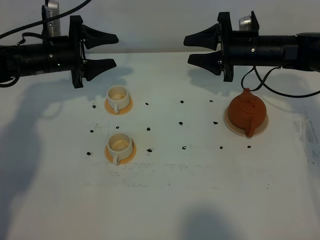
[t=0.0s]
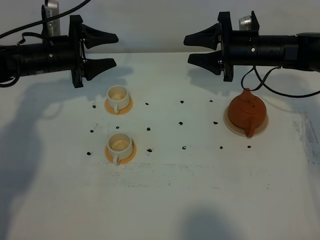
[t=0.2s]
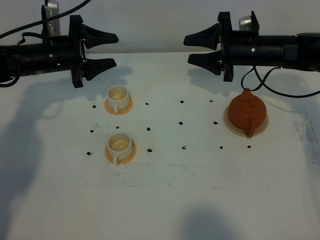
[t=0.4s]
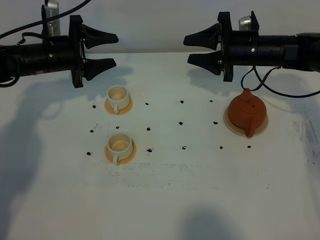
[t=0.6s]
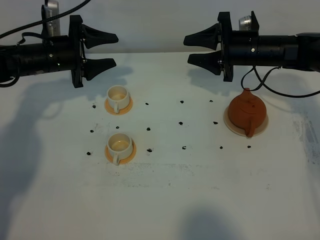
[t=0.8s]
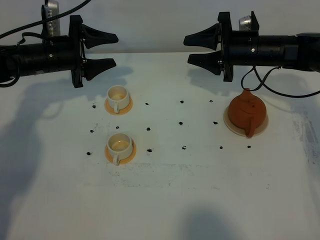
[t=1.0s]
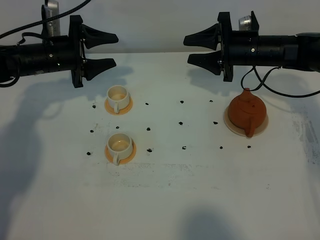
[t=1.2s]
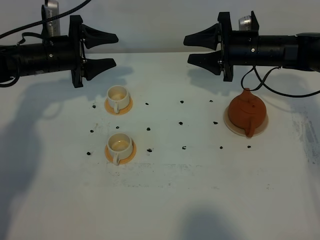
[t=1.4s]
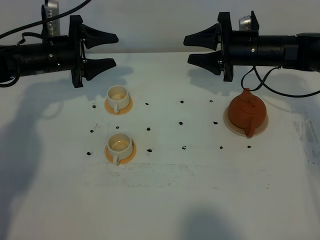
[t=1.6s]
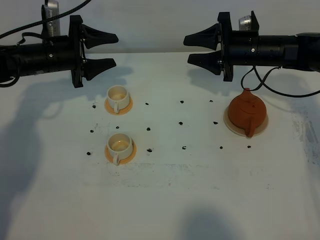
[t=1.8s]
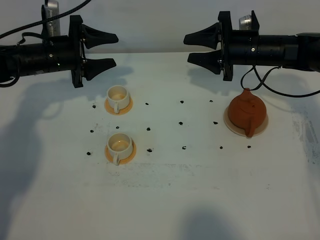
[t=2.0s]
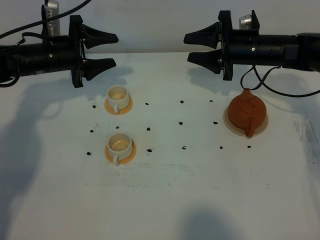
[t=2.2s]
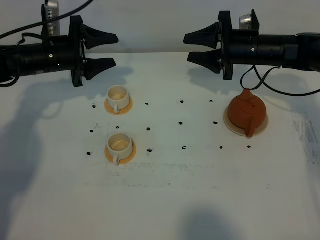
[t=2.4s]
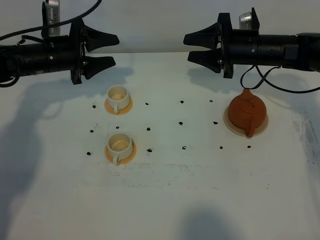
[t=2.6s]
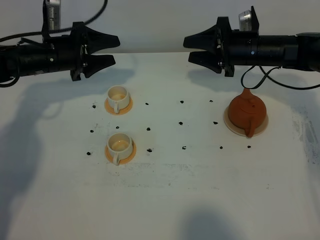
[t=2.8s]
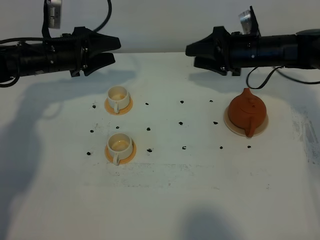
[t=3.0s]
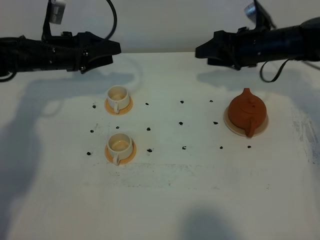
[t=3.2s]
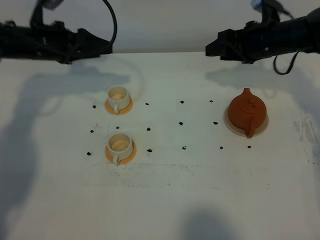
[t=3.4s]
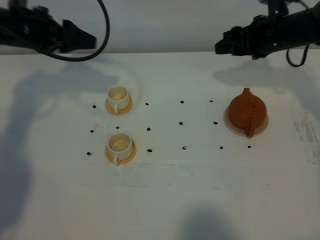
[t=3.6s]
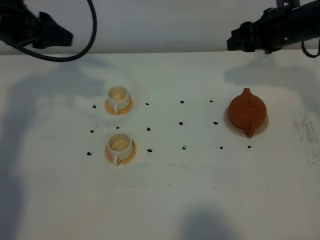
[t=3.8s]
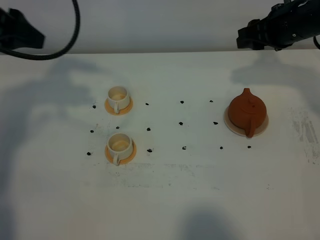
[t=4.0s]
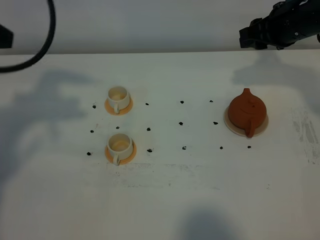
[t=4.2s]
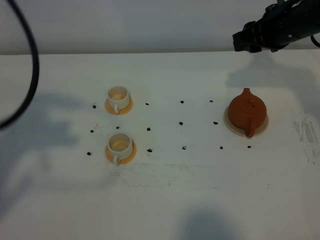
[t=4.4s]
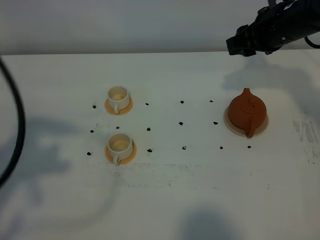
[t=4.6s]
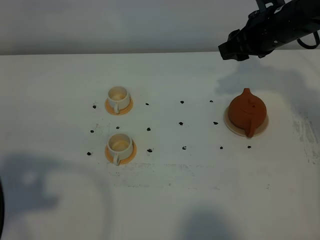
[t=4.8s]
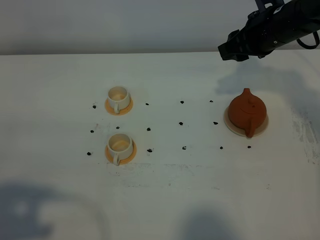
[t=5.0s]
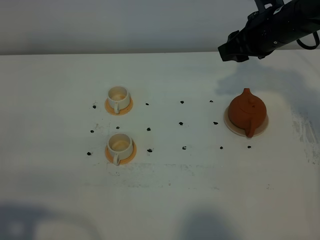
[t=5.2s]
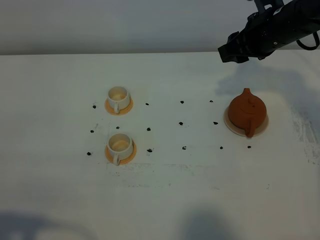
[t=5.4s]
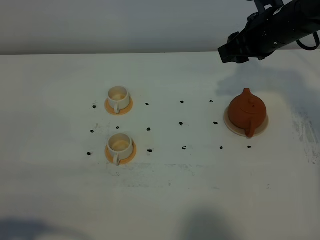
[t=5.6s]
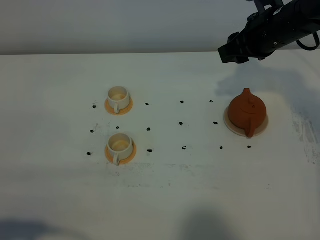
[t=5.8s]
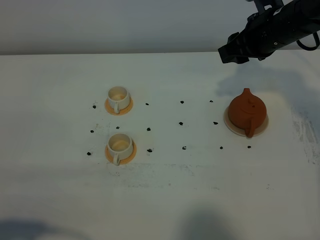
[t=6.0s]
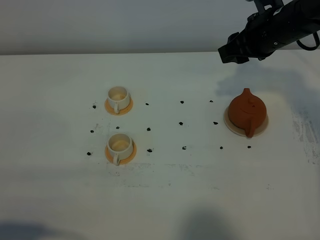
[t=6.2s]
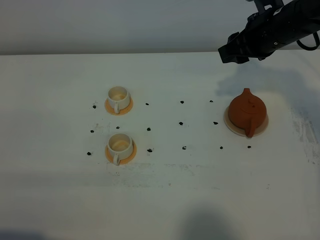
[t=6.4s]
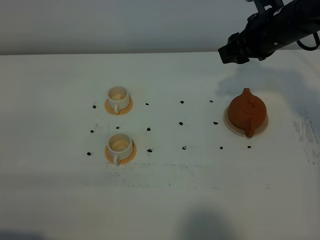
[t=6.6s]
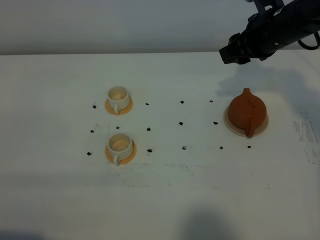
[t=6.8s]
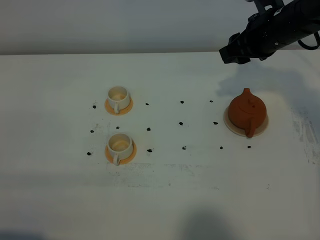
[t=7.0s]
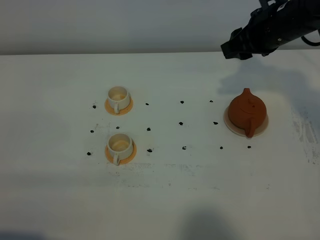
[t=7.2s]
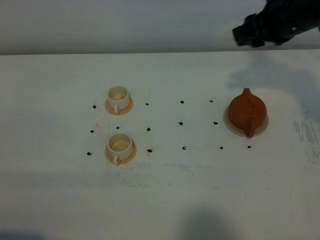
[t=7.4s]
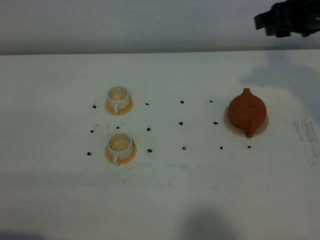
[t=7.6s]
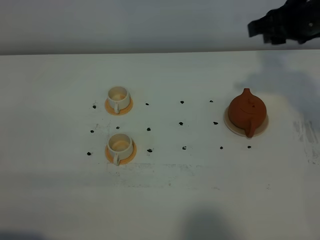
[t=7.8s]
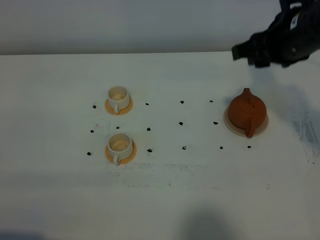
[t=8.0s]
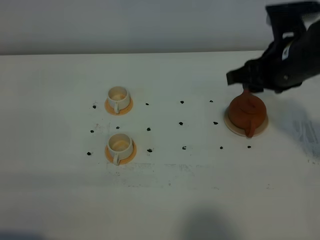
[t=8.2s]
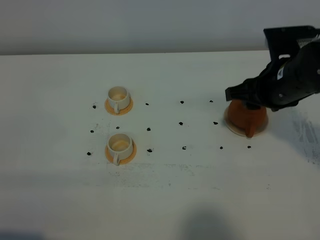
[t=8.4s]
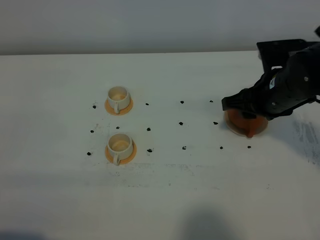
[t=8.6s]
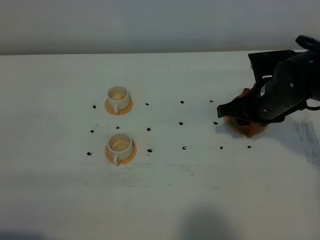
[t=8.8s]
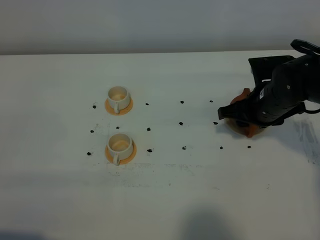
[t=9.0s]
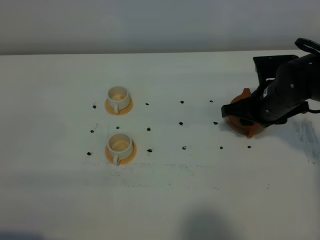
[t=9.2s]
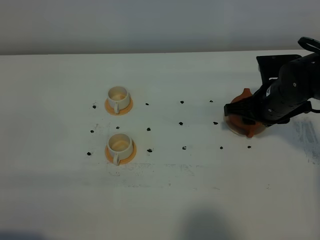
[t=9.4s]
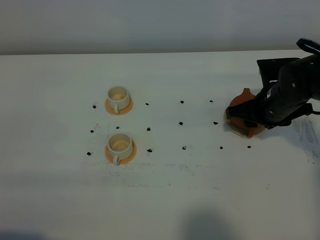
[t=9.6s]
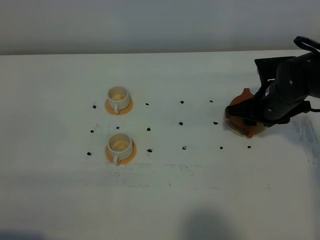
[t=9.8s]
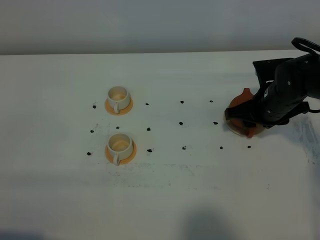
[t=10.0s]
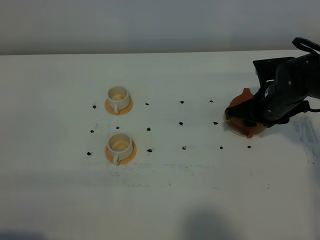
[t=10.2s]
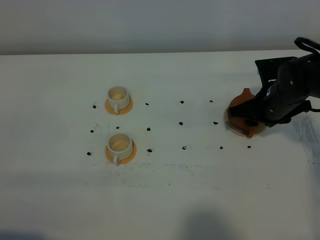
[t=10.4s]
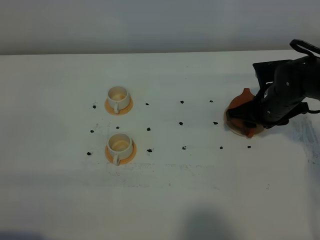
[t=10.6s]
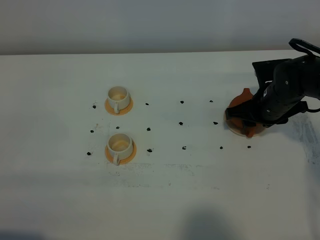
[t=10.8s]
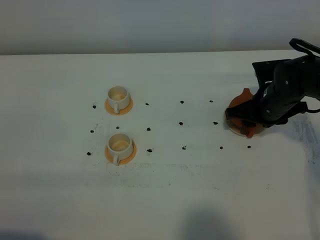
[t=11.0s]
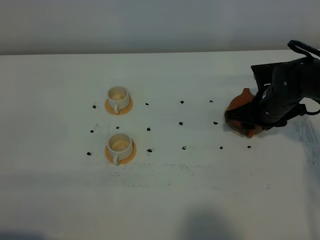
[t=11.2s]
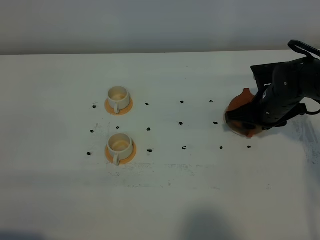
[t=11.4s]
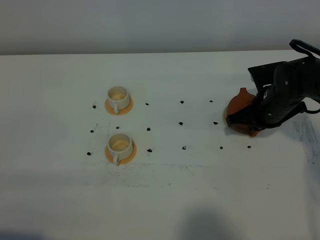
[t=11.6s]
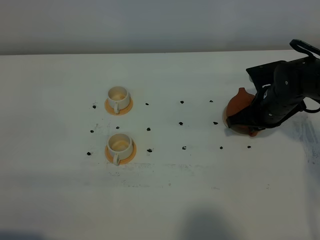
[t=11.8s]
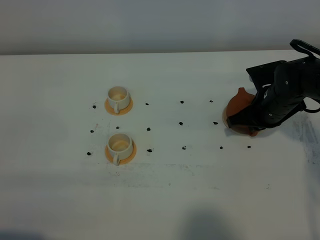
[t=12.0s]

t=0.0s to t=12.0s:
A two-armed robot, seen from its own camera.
Task of the whole recording: grasp the brown teapot and pour the tea into the two white teacups one by one, put the brown teapot back in its original place.
t=0.0s to t=1.6s: The two grippers keep their place.
t=3.0s to t=4.4s: The left gripper heads backward and upward, covering some 35 cm, while the right gripper goes roughly 10 cm upward.
t=4.4s to t=6.0s: The left gripper moves backward and downward, about 25 cm.
t=6.0s to t=7.6s: The right gripper heads upward, covering approximately 5 cm.
t=7.6s to t=9.0s: The right gripper goes about 15 cm downward.
t=9.0s to t=10.4s: The grippers move only a little.
t=10.4s to t=12.0s: The right gripper closes.

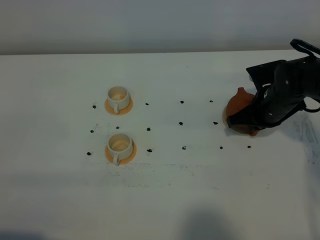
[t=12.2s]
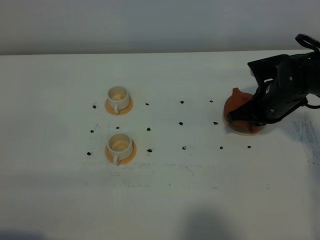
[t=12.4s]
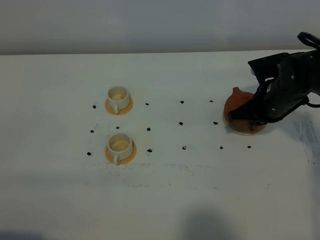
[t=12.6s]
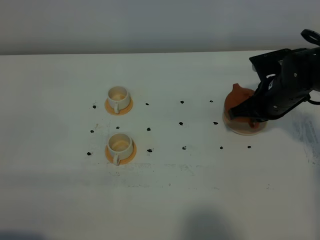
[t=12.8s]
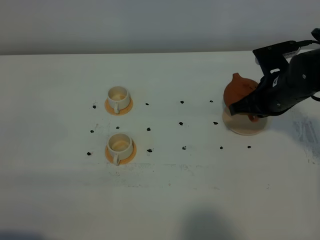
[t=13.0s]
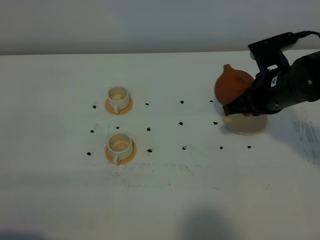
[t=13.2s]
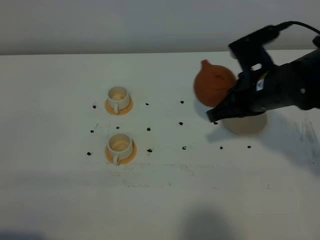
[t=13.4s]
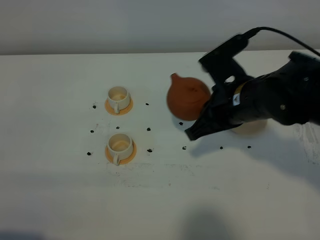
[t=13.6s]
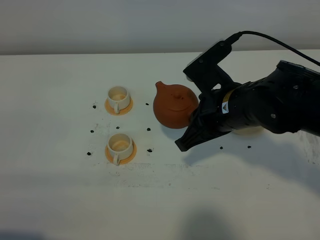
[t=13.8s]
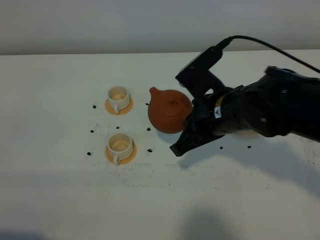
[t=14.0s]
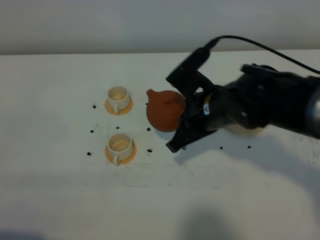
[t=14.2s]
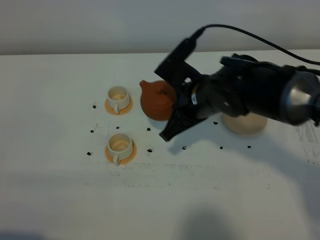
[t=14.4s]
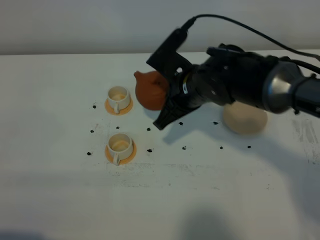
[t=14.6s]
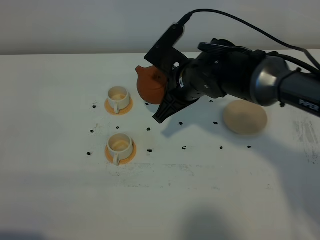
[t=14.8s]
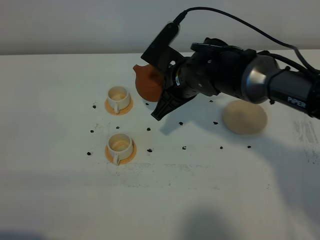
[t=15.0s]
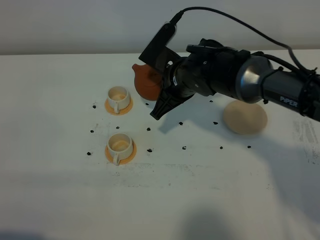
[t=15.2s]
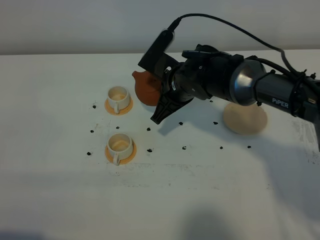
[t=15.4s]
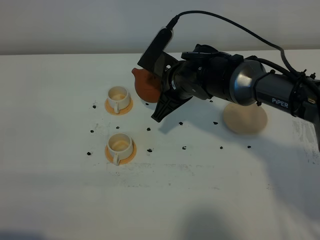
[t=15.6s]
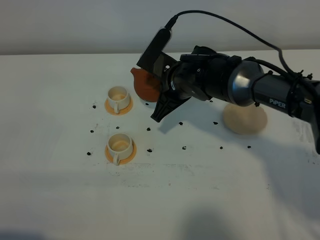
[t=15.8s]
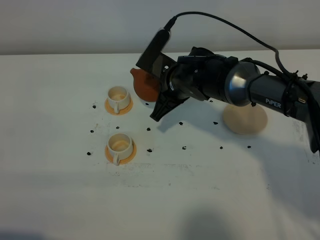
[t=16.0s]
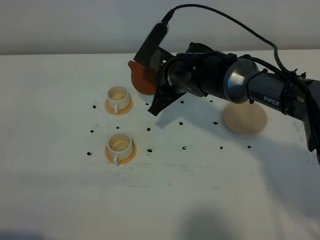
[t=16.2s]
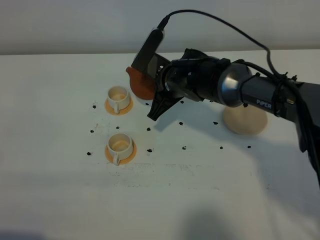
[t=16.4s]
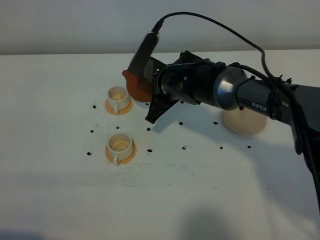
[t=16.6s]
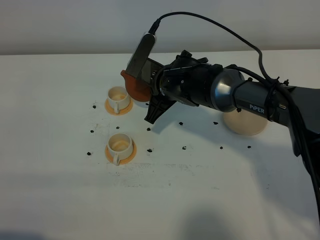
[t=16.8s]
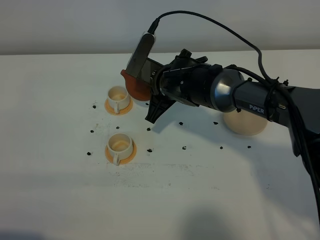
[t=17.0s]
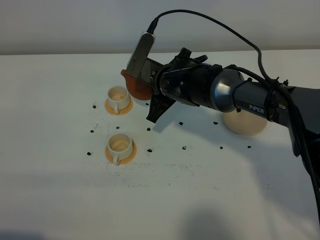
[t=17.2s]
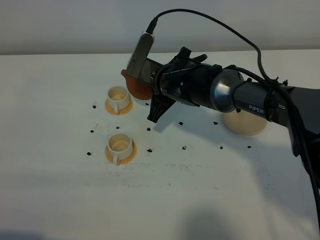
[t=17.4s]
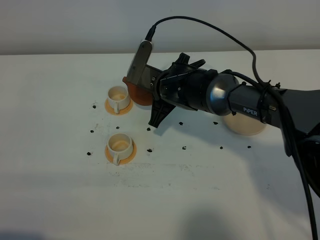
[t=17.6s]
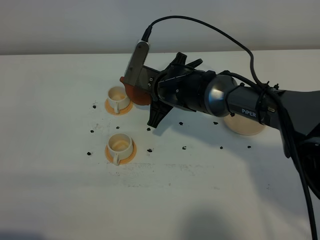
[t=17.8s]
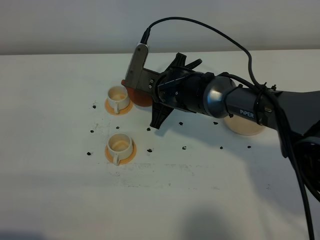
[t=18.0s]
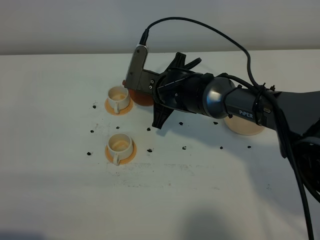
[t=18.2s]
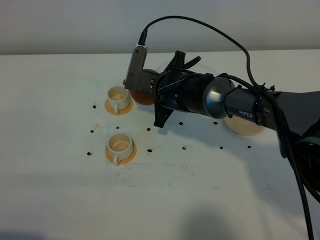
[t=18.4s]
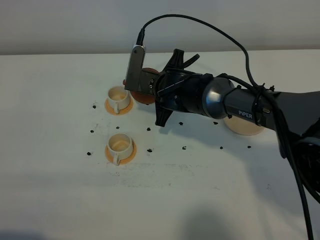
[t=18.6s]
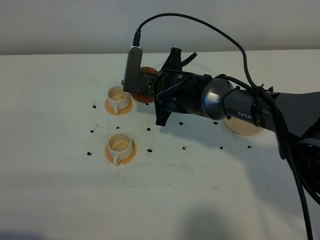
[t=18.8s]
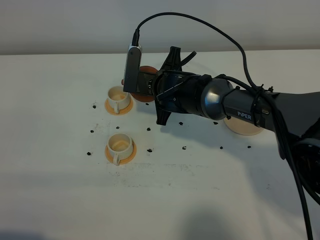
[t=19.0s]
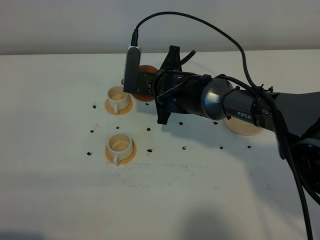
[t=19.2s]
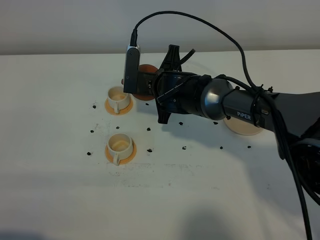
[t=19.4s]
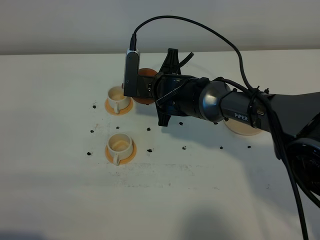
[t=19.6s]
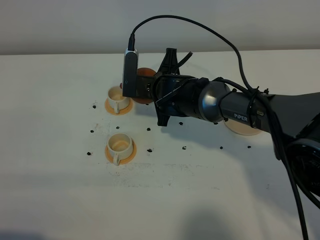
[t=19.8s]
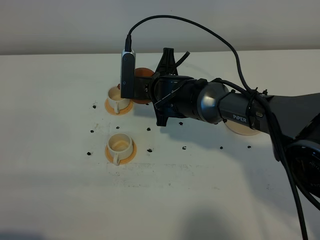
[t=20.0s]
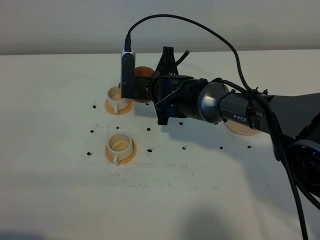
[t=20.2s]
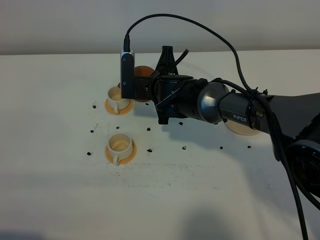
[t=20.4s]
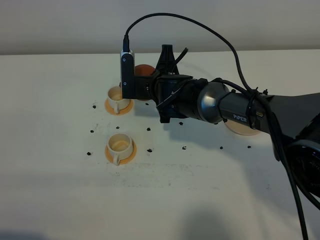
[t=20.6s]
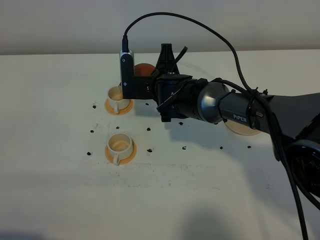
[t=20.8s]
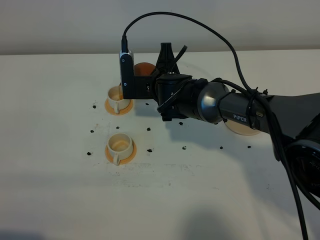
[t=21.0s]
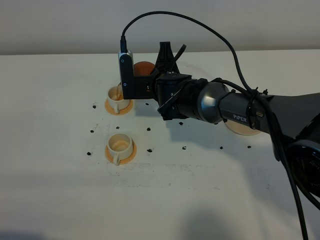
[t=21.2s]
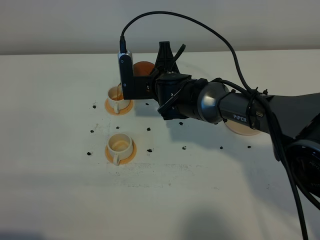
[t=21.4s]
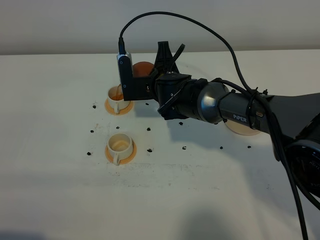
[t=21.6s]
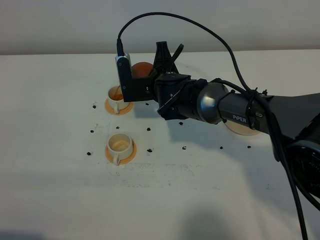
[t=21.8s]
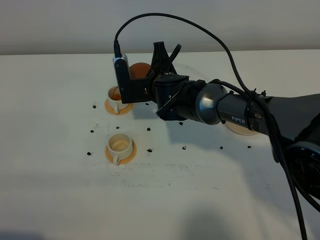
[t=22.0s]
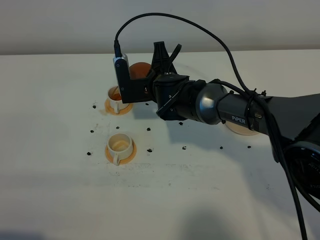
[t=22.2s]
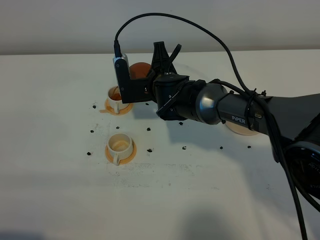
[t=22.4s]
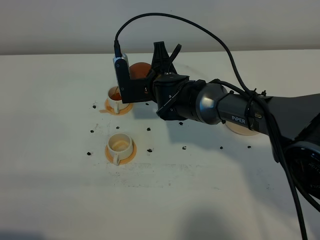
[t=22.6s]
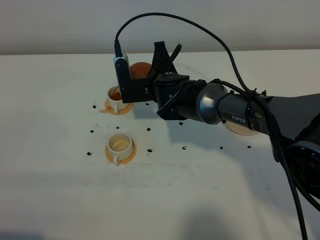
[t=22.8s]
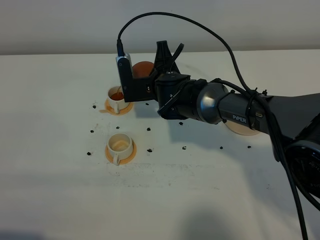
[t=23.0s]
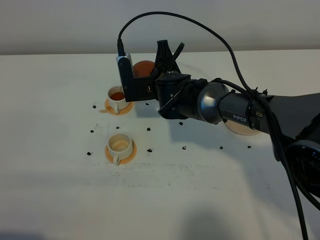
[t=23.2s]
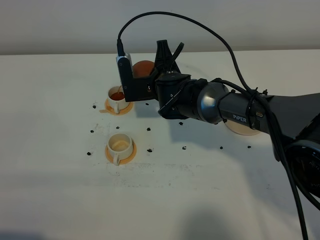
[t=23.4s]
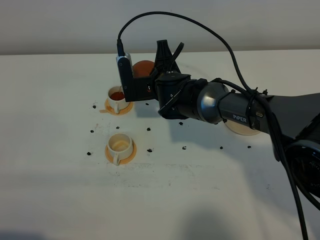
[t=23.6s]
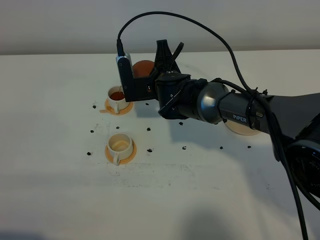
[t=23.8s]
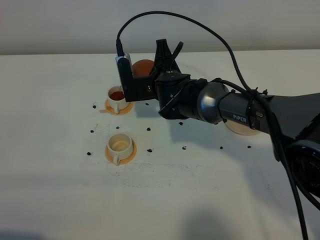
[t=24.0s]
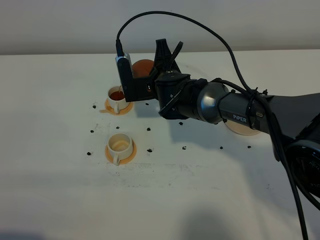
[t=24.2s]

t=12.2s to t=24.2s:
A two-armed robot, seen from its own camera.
Task of the whole recording: grasp the brown teapot and pour the tea into the two white teacups one by one, put the brown teapot back in its original place.
t=12.2s to t=13.8s: The right gripper is displaced backward, to the left and upward by approximately 20 cm.
t=13.8s to t=15.2s: The right gripper moves forward and to the left, approximately 10 cm.
t=15.2s to t=16.6s: The grippers make only small movements.
t=16.6s to t=18.2s: There are only small adjustments of the grippers.
t=18.2s to t=19.8s: There are only small adjustments of the grippers.
t=19.8s to t=22.6s: There are only small adjustments of the grippers.
t=22.6s to t=24.2s: Both grippers stay put.
